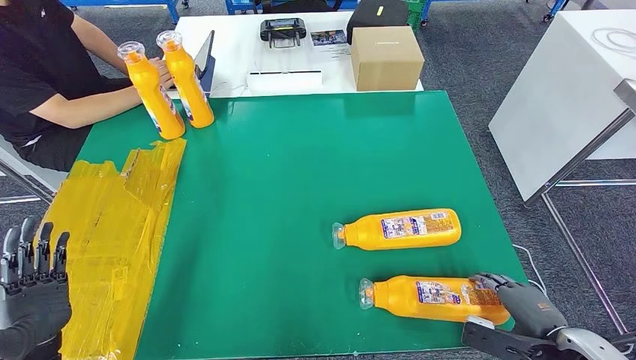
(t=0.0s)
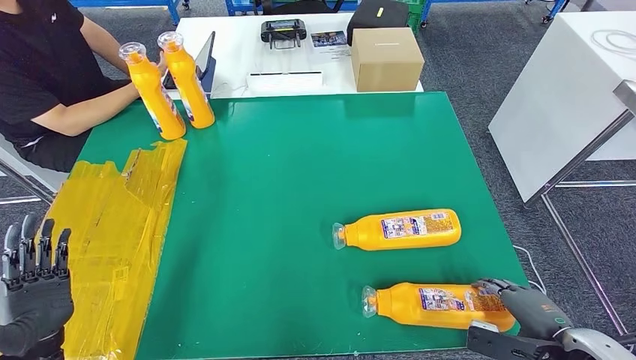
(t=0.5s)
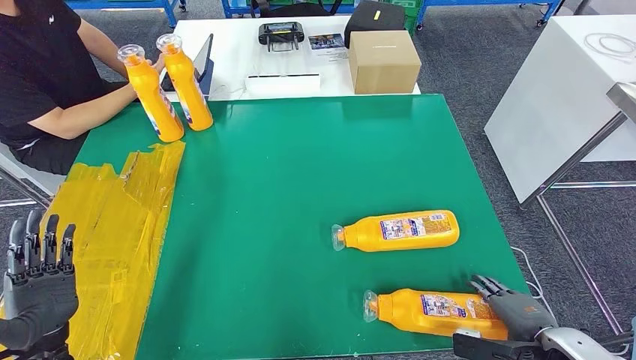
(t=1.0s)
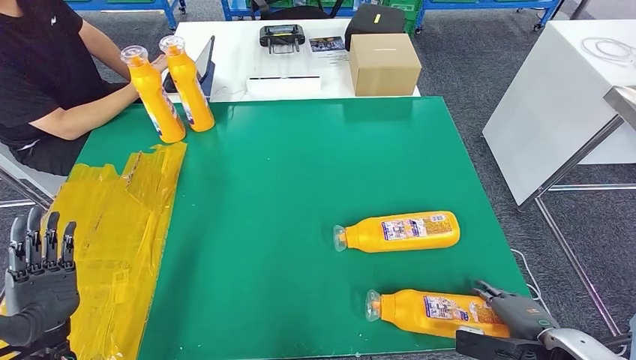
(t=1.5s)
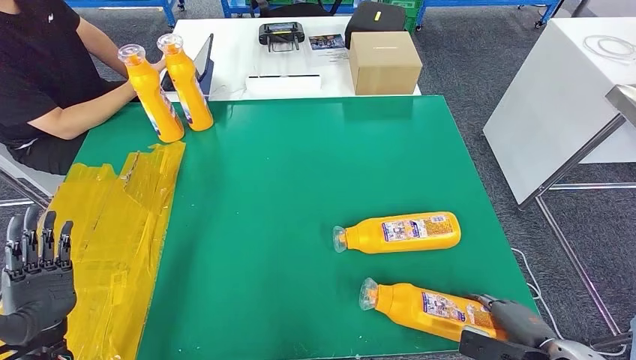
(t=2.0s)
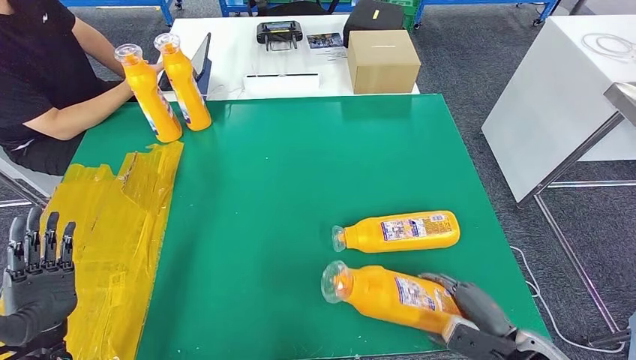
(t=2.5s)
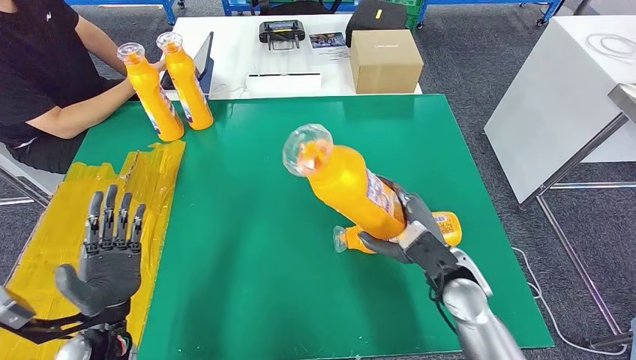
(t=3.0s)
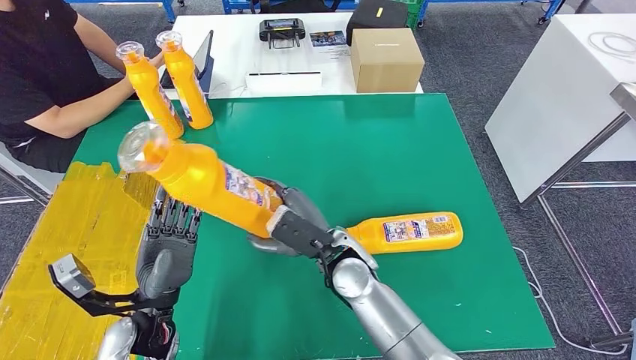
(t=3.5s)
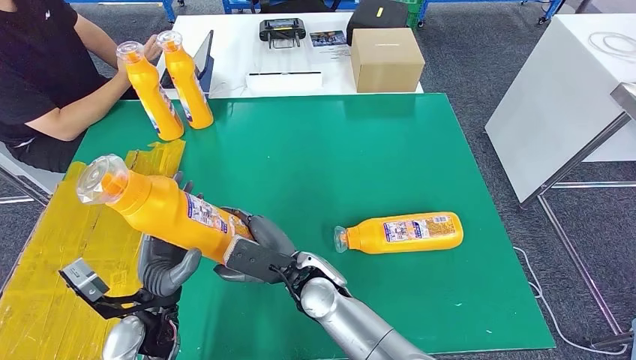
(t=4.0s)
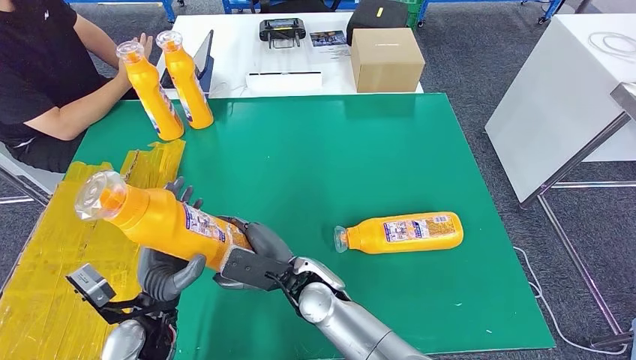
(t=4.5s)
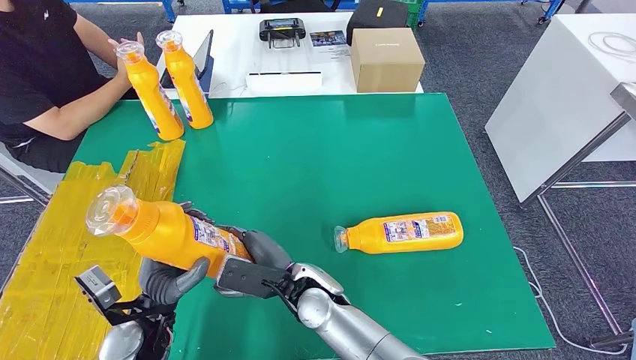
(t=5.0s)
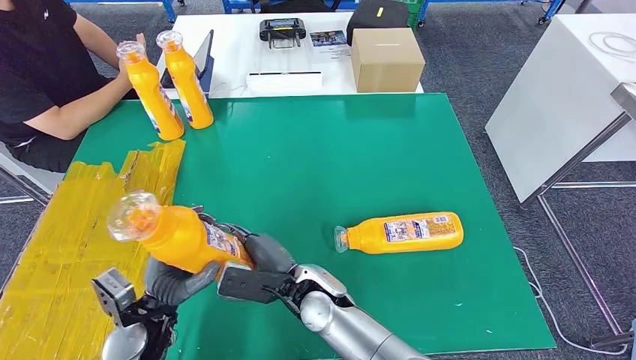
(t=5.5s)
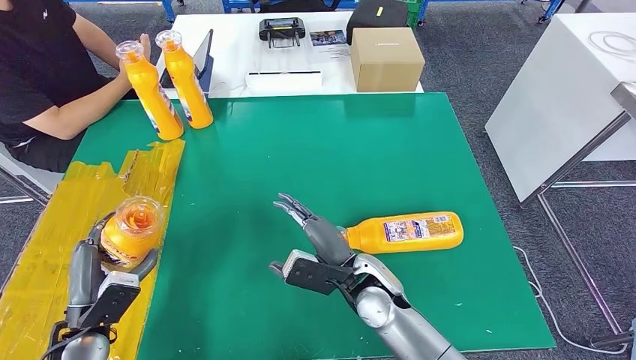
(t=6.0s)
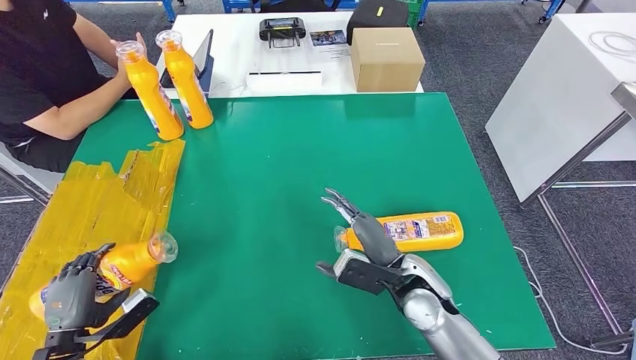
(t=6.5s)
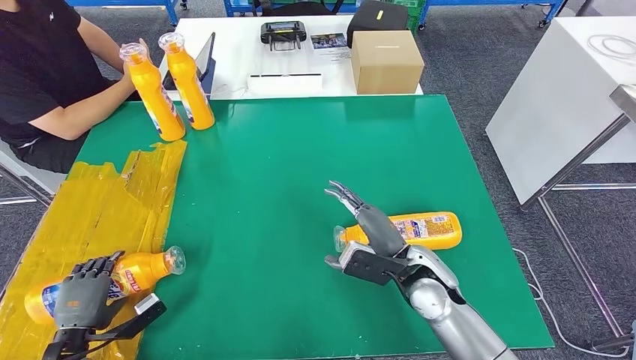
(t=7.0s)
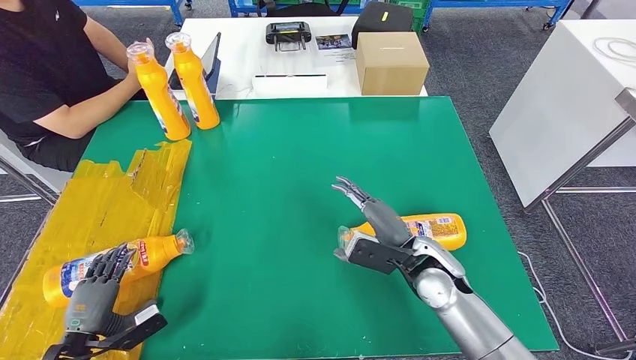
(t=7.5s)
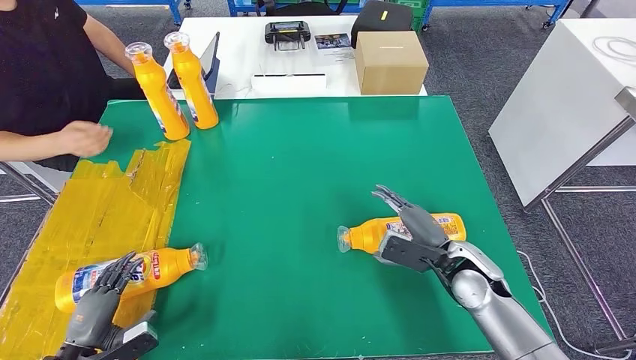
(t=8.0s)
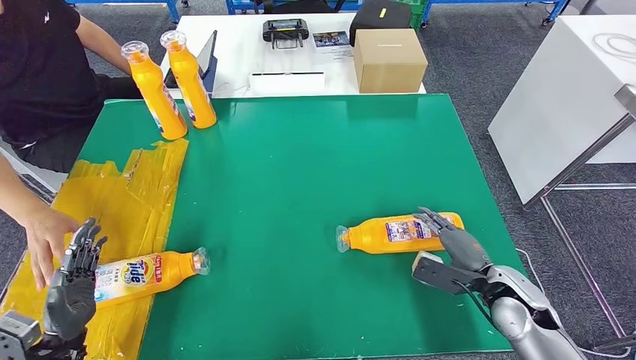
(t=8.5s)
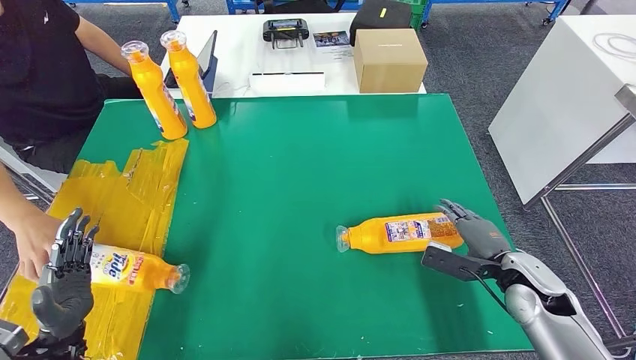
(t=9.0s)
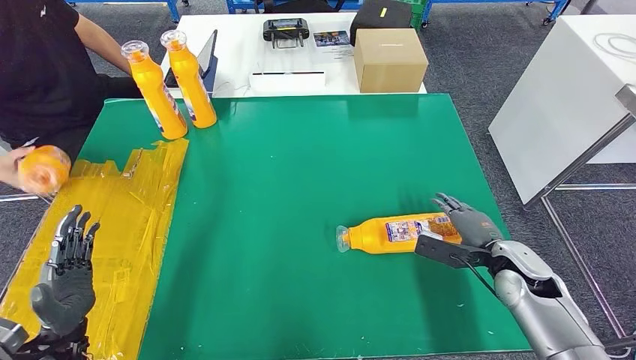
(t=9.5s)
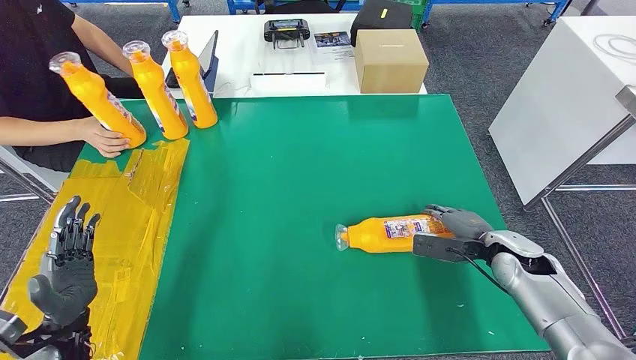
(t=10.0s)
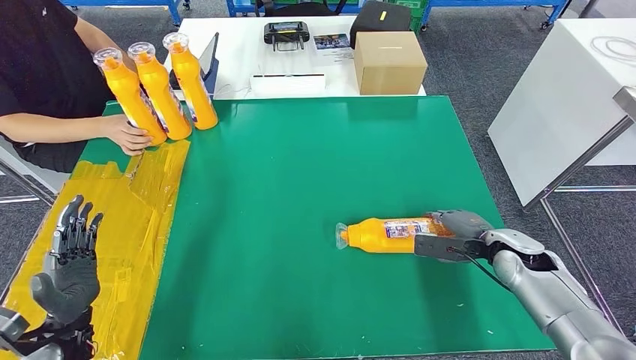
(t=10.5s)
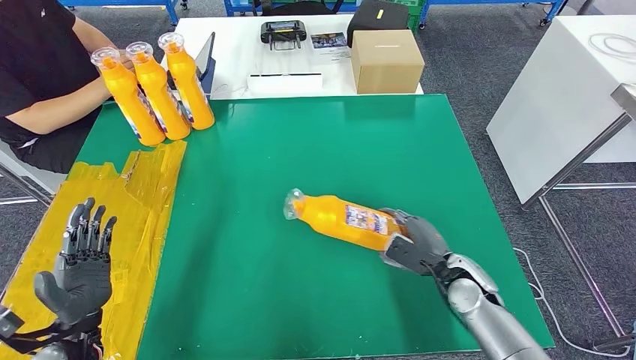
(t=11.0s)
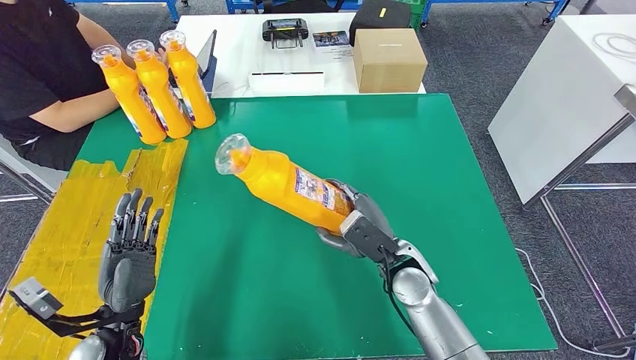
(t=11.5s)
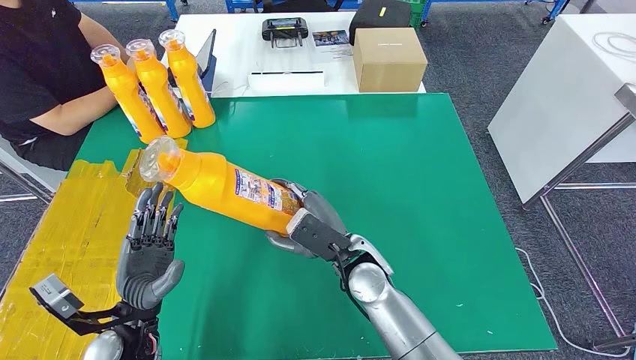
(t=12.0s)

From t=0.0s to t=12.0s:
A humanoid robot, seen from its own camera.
Step, from t=0.0s to t=3.5s: Pick up the bottle from the table.
Step, from t=4.0s to t=7.0s: Flip the bottle to face forward.
From t=0.0s to t=2.0s: The hands move only a little.
From t=4.0s to t=6.0s: The right hand is displaced to the right by about 10 cm; the left hand travels to the left by some 10 cm.

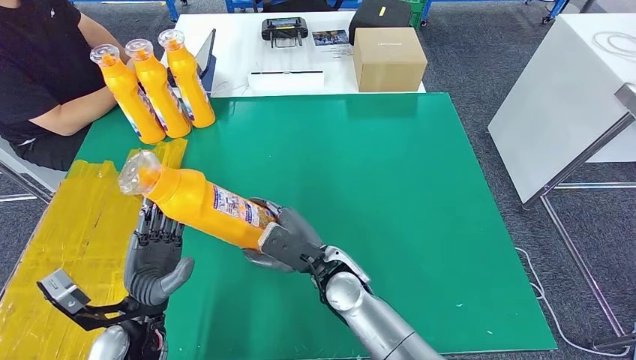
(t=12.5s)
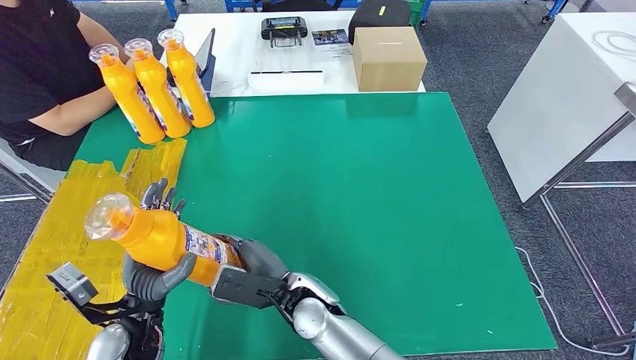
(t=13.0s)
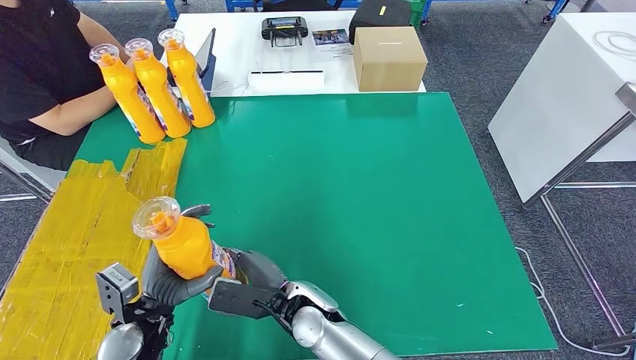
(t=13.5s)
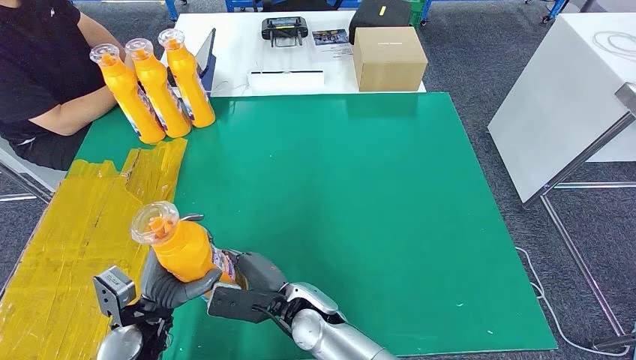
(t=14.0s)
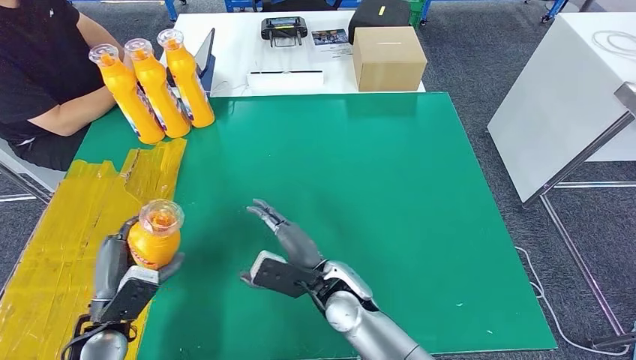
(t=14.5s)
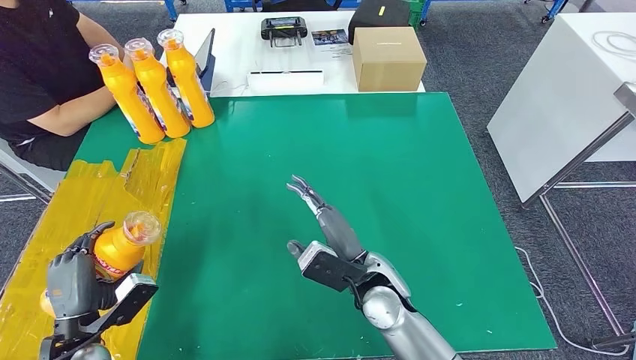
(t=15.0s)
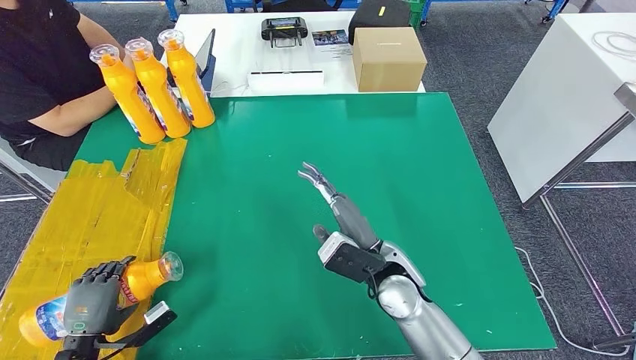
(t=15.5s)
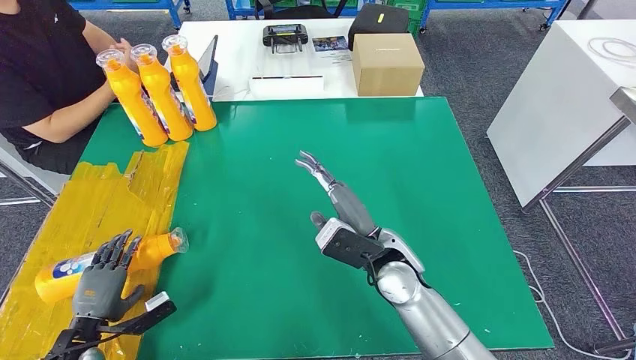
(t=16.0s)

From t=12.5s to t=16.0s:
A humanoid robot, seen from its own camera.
Step, from t=13.5s to t=16.0s: Flip the bottle to face forward.
From t=12.5s to t=14.5s: The left hand moves to the left, roughly 5 cm.
